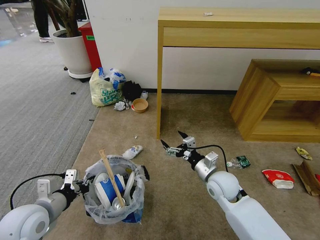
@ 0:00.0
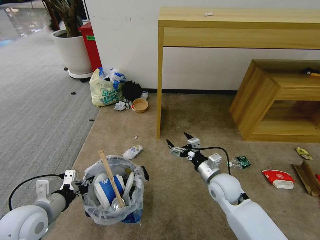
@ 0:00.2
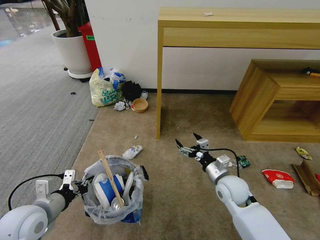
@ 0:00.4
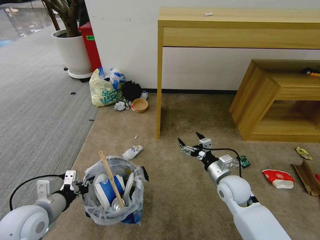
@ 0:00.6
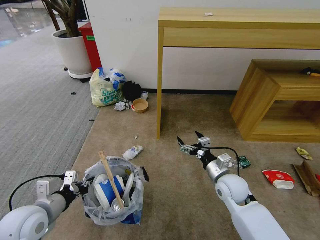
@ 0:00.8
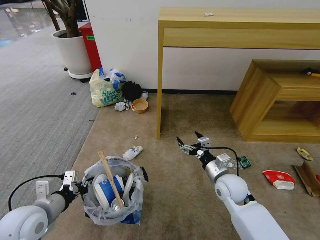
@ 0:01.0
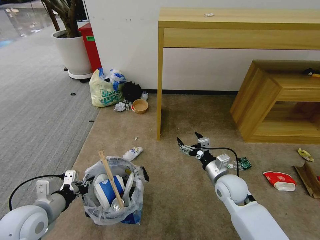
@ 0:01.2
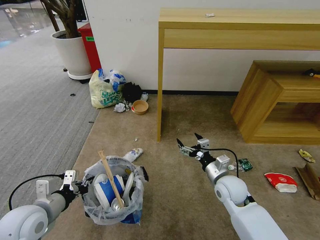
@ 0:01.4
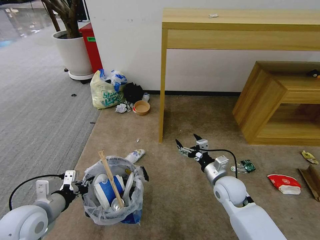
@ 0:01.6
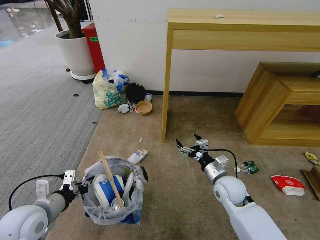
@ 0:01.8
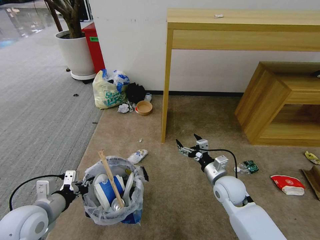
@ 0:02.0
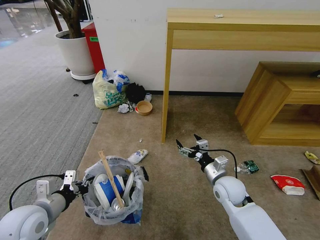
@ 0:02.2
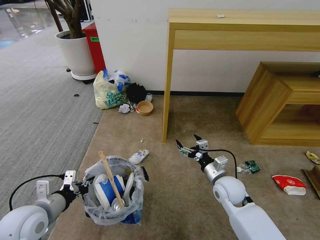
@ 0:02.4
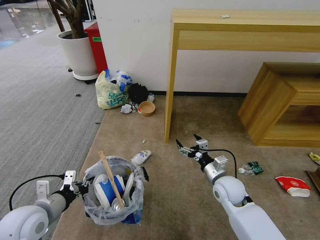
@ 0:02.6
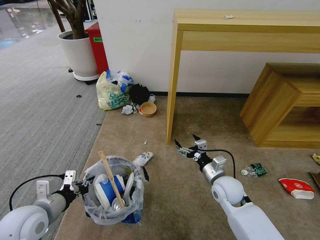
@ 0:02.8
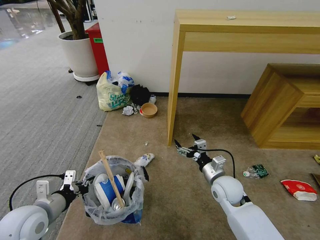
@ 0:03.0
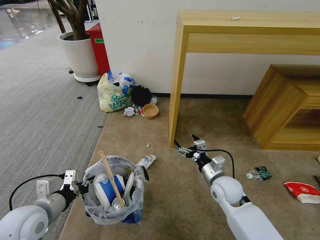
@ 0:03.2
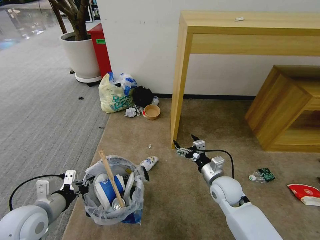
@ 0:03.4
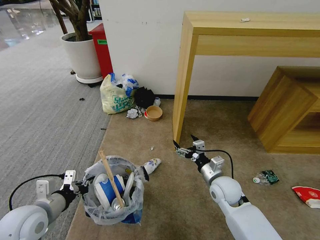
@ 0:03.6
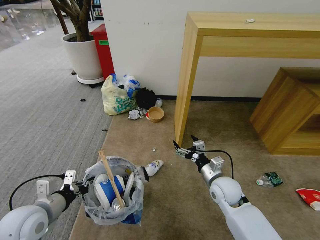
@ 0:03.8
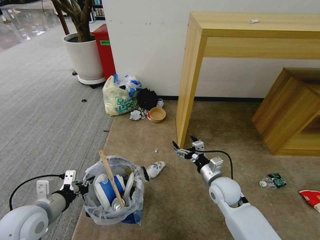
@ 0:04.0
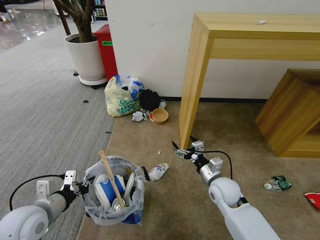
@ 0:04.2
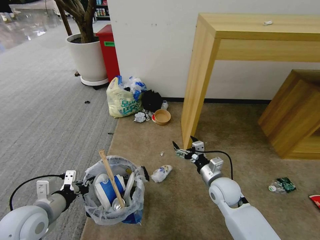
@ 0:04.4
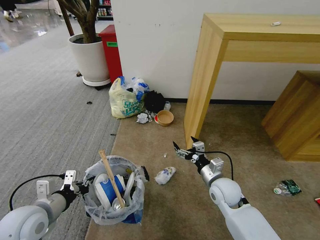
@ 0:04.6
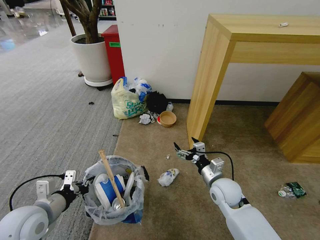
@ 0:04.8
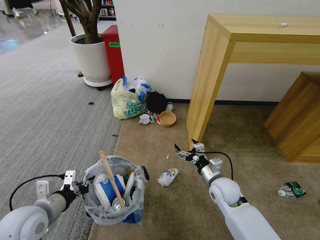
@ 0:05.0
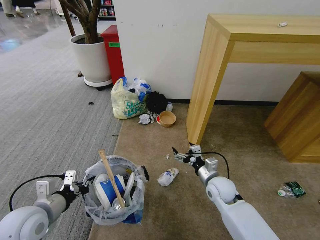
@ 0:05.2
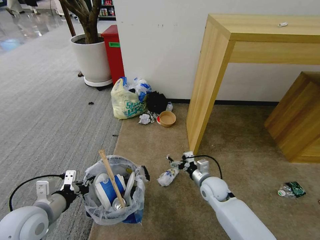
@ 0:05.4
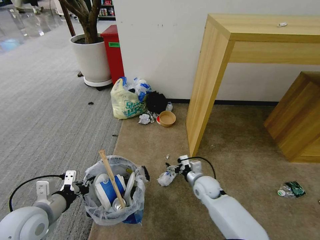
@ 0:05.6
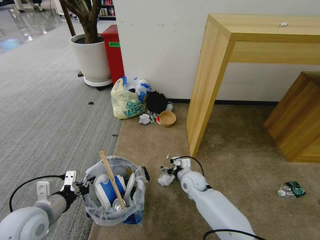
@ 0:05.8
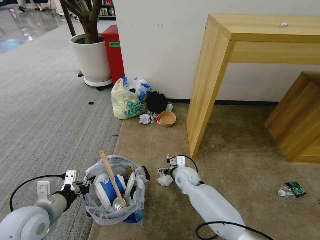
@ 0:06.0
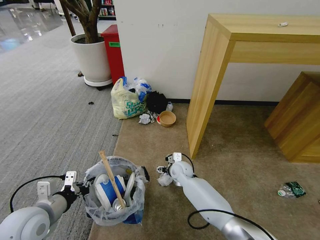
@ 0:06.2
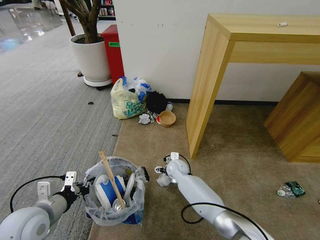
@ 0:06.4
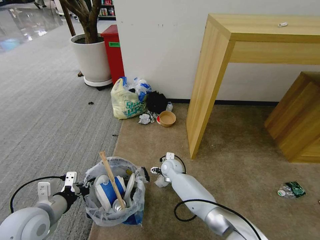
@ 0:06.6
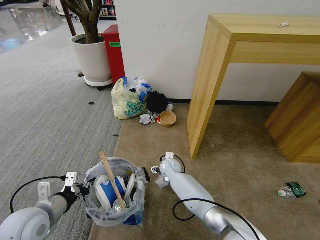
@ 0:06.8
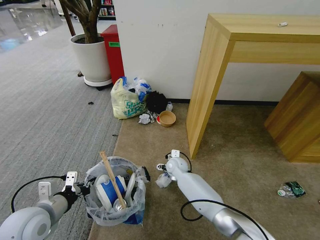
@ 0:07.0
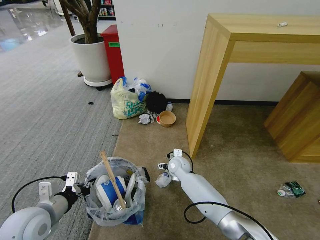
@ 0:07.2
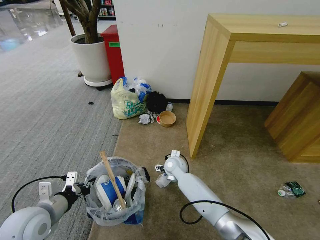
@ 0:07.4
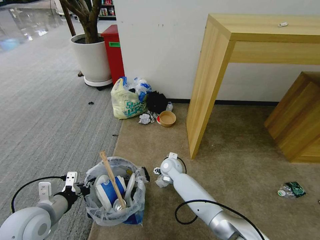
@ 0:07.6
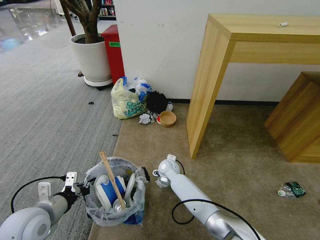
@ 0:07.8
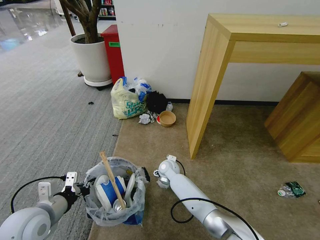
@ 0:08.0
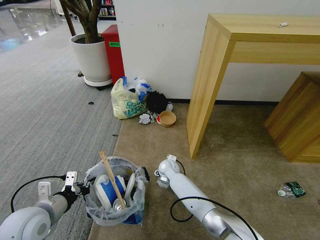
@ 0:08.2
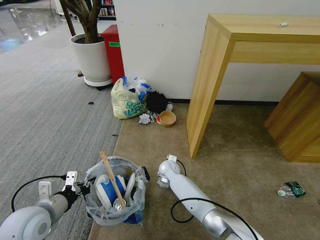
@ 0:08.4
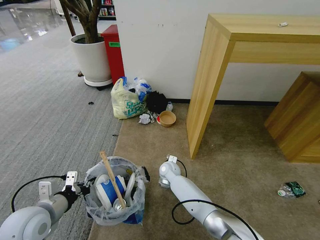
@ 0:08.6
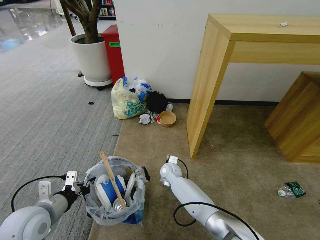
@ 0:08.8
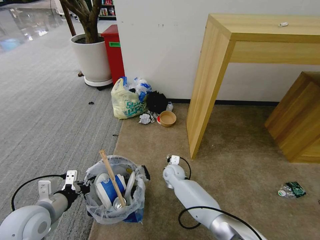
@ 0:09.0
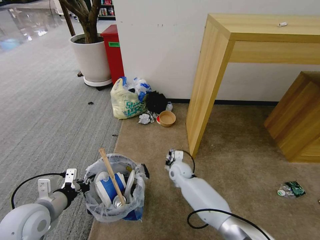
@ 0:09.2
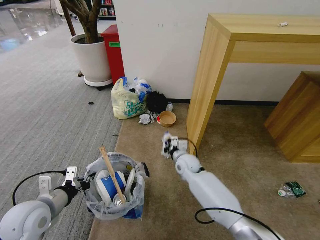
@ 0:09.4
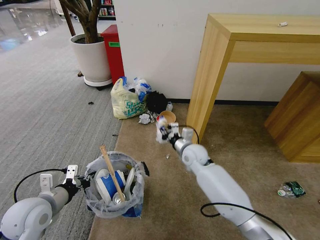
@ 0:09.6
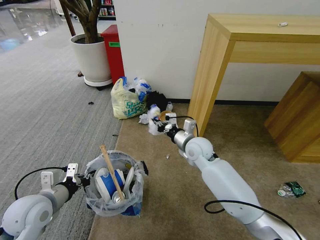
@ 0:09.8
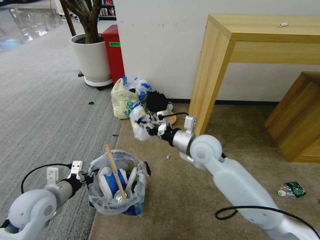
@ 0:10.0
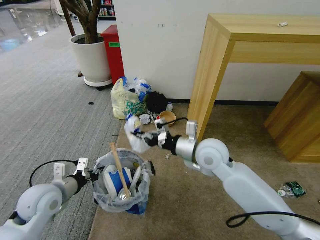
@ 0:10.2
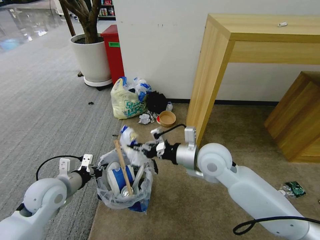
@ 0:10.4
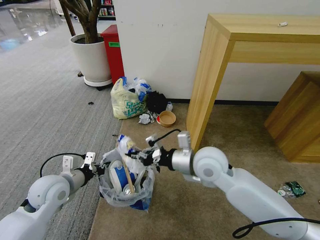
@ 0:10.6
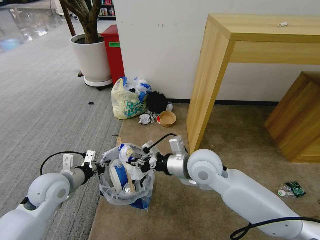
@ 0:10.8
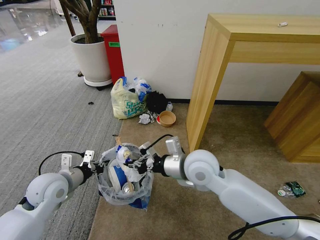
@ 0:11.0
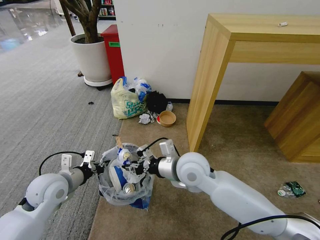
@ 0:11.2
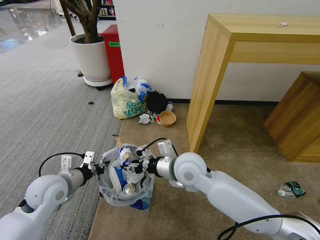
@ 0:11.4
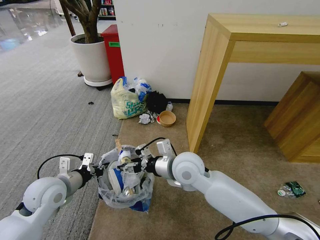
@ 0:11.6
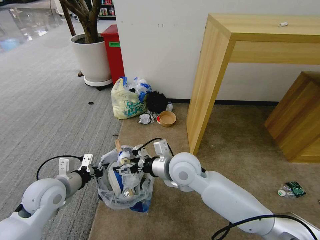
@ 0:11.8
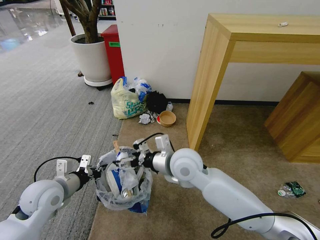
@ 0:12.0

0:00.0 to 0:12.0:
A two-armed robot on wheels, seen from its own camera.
Task of the whole recording: Pick up the trash bin and place the garbage on the floor into it.
0:00.0 to 0:01.6: The grippers make only small movements.
0:01.6 to 0:03.0: Neither gripper changes place.
0:04.4 to 0:06.0: The right gripper travels to the left, forward and downward by approximately 15 cm.
0:06.0 to 0:07.6: The right gripper goes approximately 5 cm to the left.
0:07.6 to 0:09.0: The right gripper closes up.
0:09.0 to 0:10.4: The left gripper is displaced forward by about 5 cm; the right gripper moves upward, roughly 25 cm.
0:10.4 to 0:12.0: The right gripper shifts roughly 10 cm to the left, and opens.

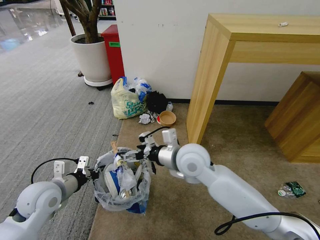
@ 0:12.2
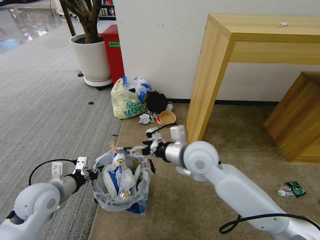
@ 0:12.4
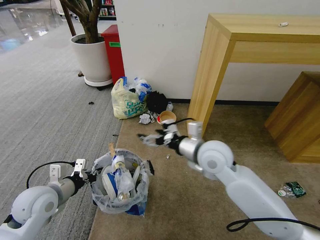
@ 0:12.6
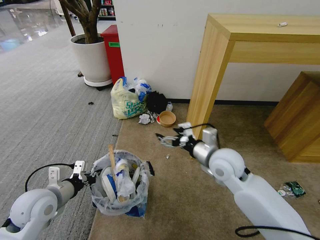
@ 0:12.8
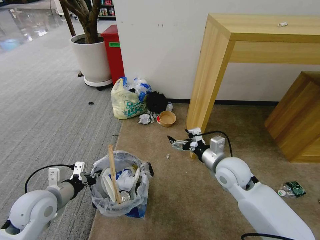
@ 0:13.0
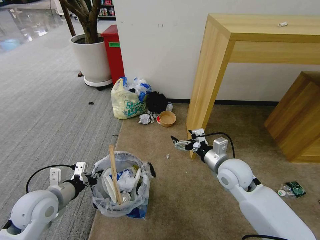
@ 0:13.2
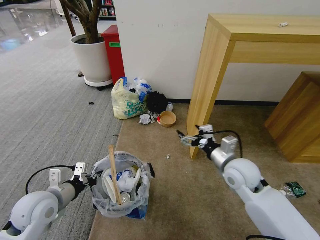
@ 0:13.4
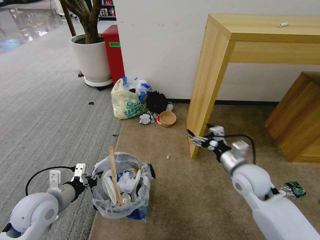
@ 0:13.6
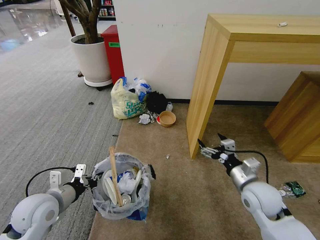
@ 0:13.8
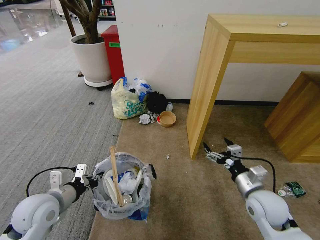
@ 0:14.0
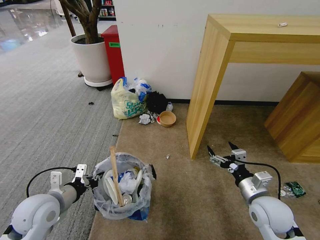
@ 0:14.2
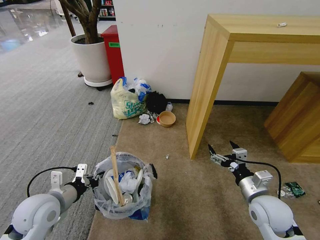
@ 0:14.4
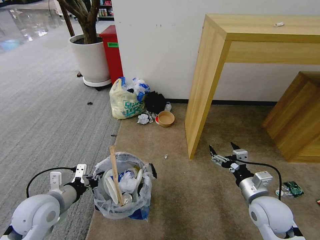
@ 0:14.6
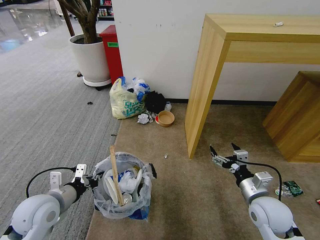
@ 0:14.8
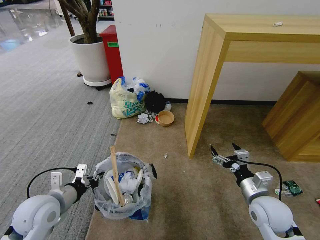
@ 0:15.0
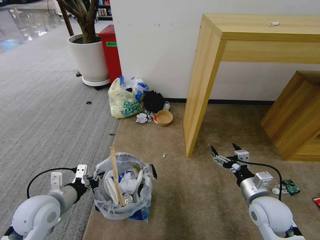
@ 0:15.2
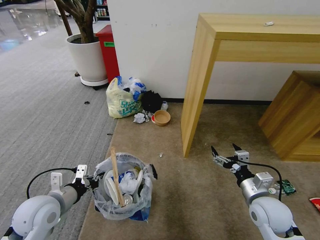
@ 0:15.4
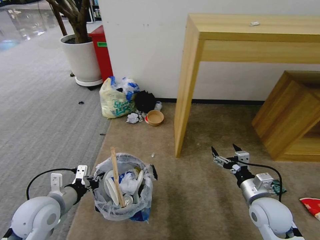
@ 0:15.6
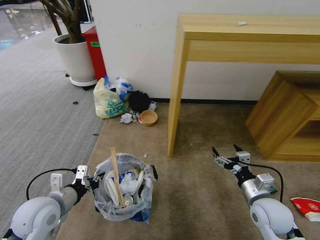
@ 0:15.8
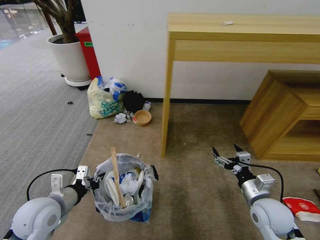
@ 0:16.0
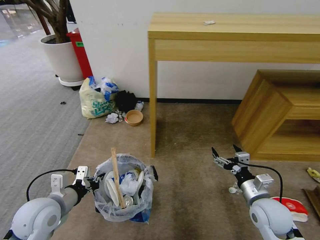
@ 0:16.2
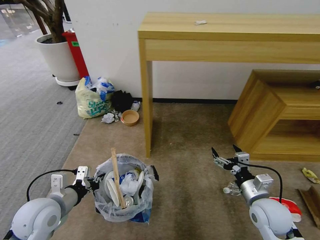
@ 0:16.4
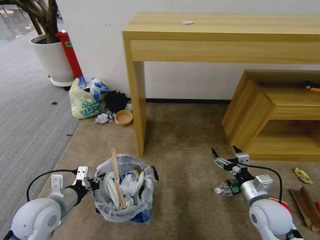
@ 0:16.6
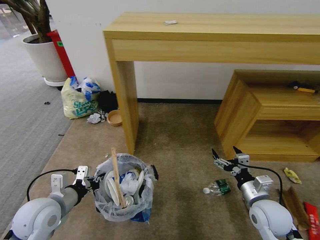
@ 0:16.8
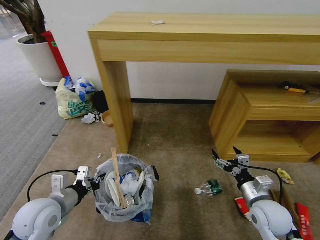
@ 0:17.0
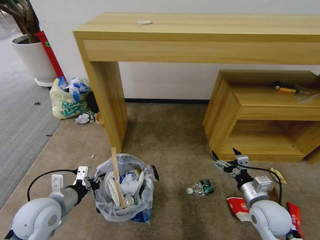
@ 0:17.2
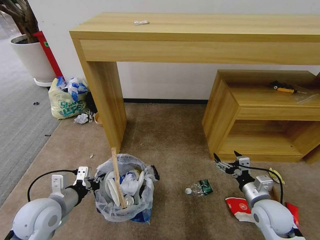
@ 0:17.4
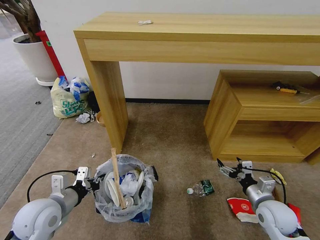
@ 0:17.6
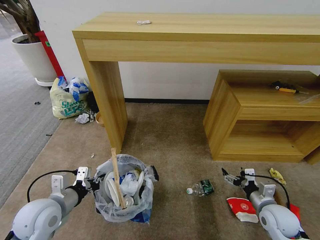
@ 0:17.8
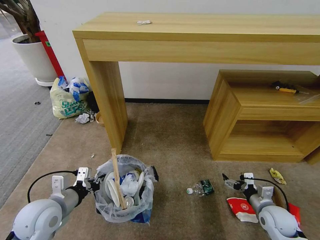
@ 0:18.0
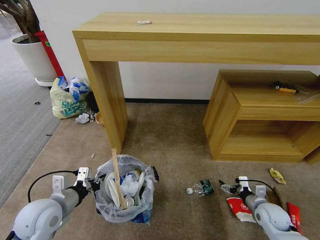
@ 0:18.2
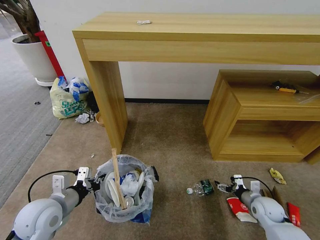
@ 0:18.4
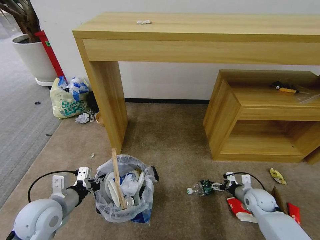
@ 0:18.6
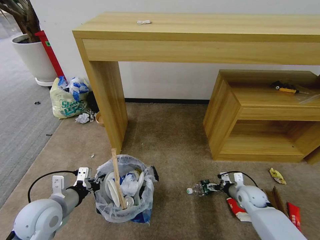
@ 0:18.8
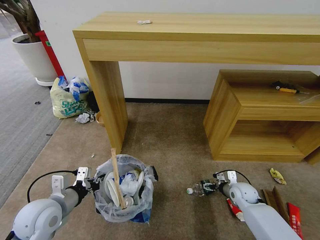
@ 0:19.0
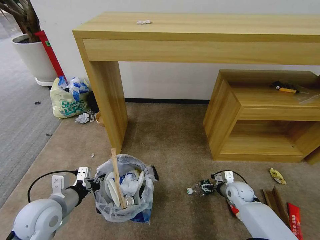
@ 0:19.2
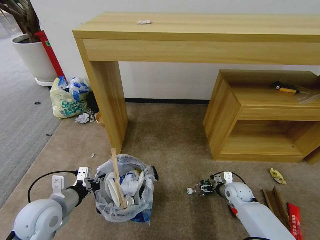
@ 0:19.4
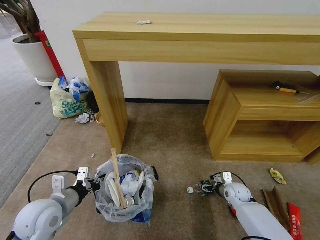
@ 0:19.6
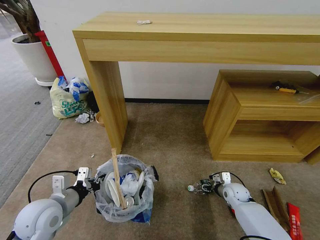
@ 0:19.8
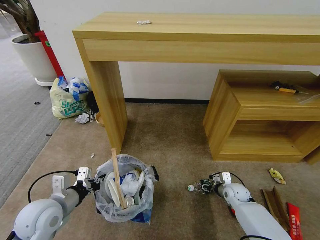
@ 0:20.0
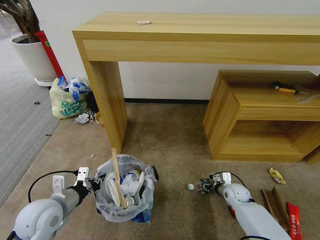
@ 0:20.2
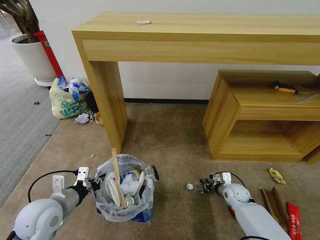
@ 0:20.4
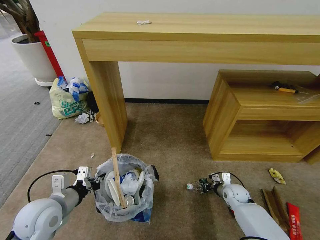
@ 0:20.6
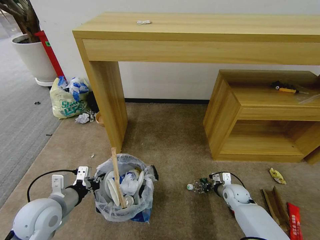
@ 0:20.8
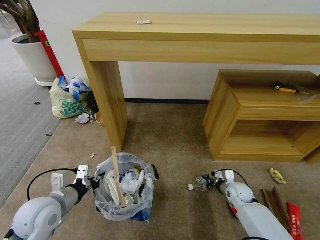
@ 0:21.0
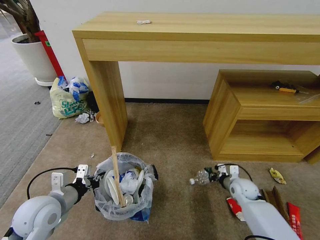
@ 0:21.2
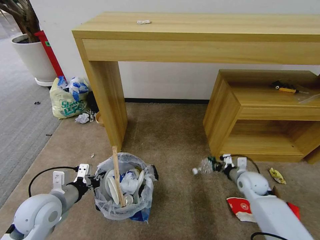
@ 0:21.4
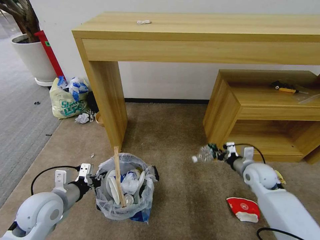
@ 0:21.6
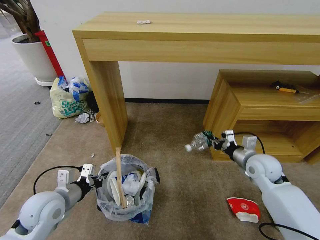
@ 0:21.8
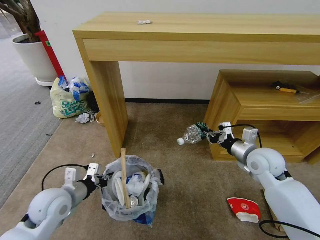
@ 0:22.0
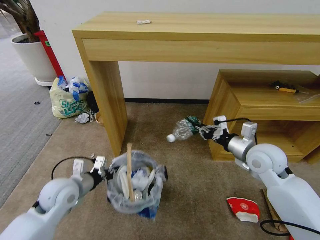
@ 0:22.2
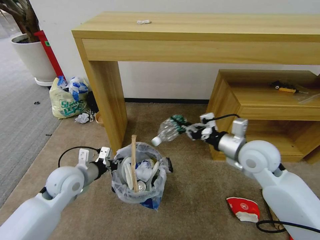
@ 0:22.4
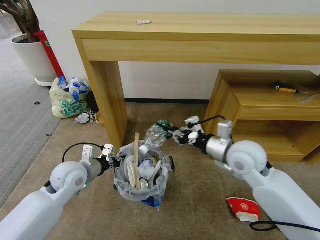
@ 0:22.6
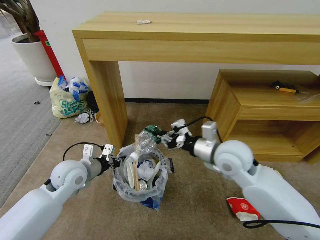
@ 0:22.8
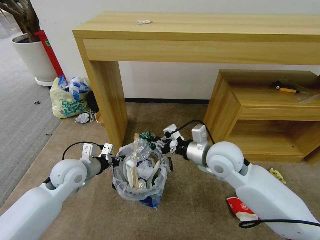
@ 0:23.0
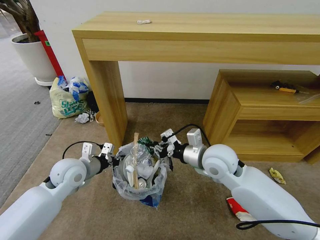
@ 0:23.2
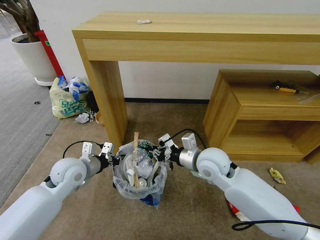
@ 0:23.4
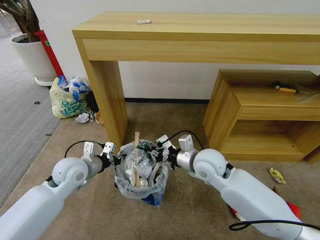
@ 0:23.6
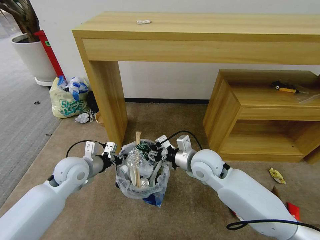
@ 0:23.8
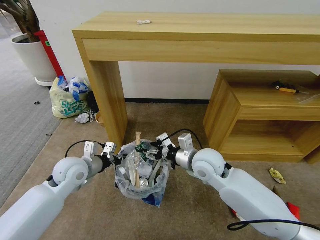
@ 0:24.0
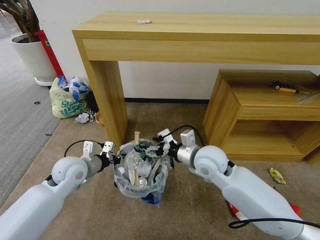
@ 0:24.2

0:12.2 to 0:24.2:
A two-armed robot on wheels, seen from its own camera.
Task of the whole recording: Pick up the trash bin and place the garbage on the floor into it.
0:12.2 to 0:13.8: The right gripper moves to the right and downward, approximately 25 cm.
0:13.8 to 0:15.2: The grippers move only a little.
0:16.6 to 0:18.2: The right gripper shifts about 15 cm downward and to the right.
0:18.2 to 0:19.8: The right gripper shifts about 15 cm forward and to the left.
0:19.8 to 0:21.2: The right gripper closes.
0:21.2 to 0:22.6: The left gripper goes about 10 cm forward. Meanwhile the right gripper heads upward and to the left, covering some 30 cm.
0:22.6 to 0:24.2: The right gripper goes approximately 10 cm to the left, and opens its fingers.
